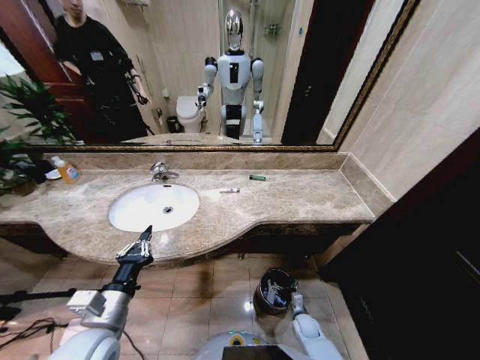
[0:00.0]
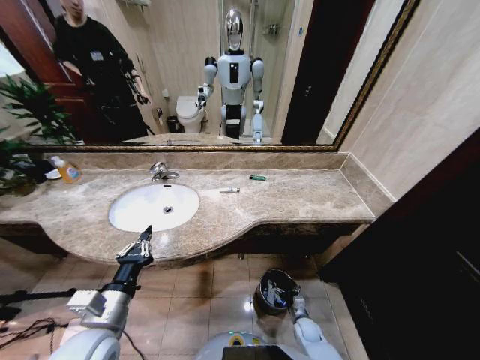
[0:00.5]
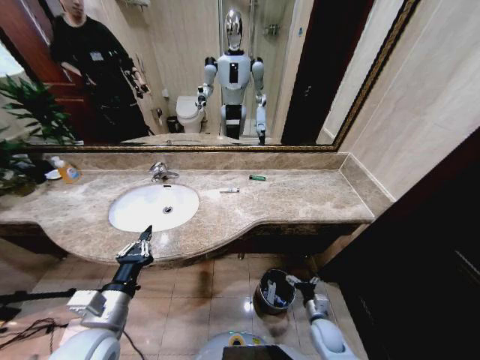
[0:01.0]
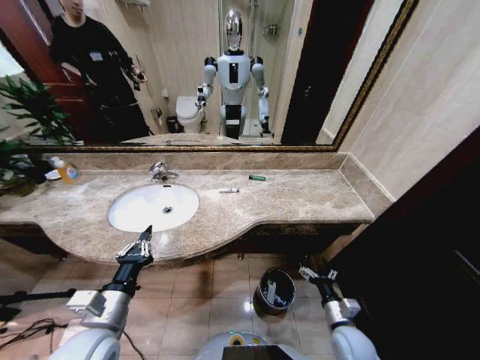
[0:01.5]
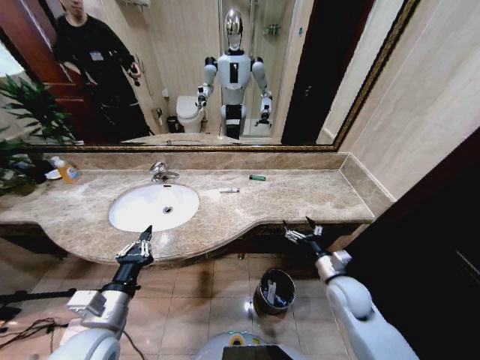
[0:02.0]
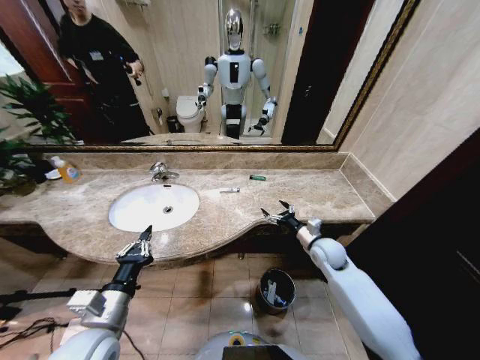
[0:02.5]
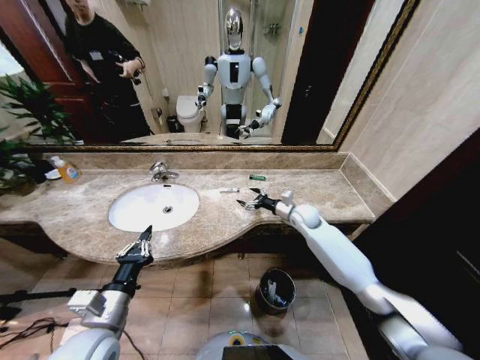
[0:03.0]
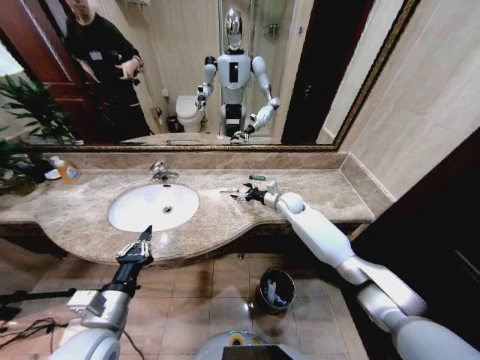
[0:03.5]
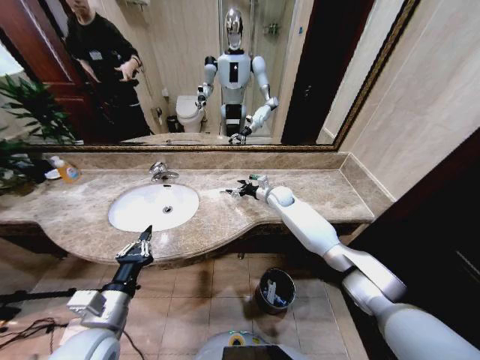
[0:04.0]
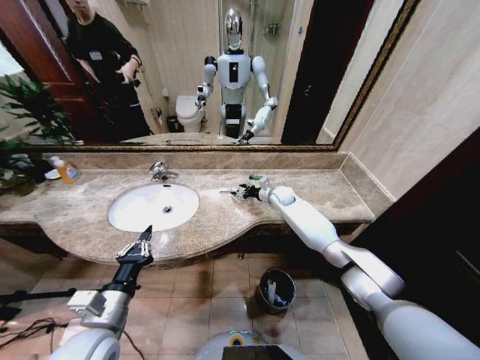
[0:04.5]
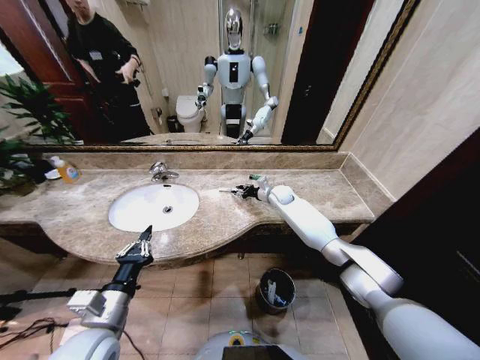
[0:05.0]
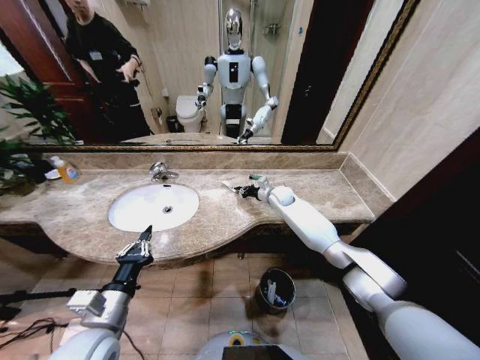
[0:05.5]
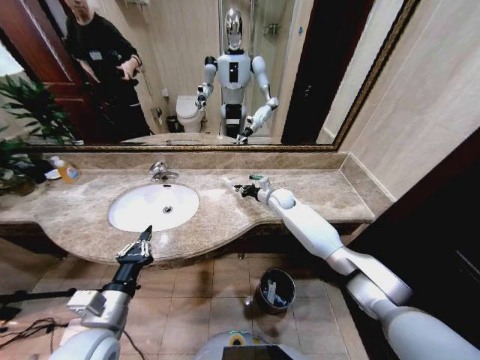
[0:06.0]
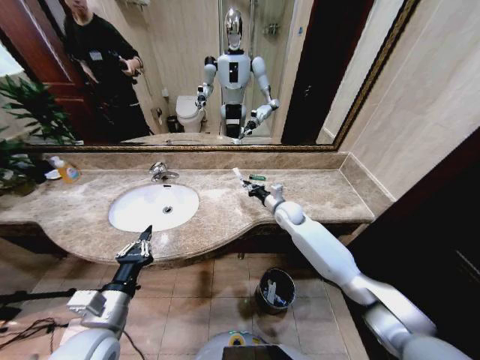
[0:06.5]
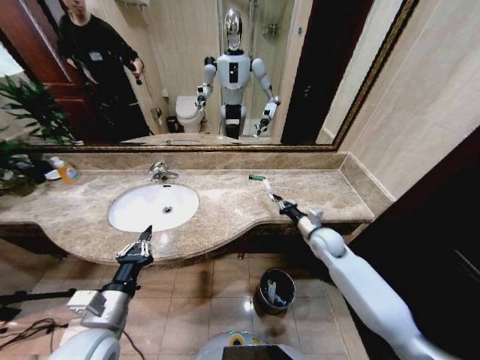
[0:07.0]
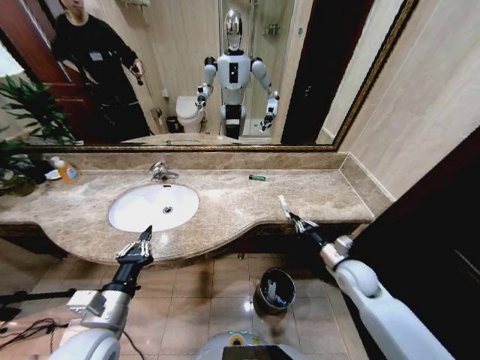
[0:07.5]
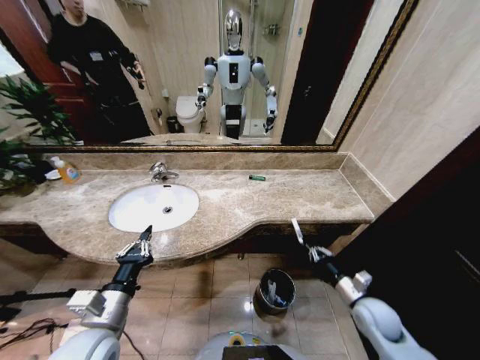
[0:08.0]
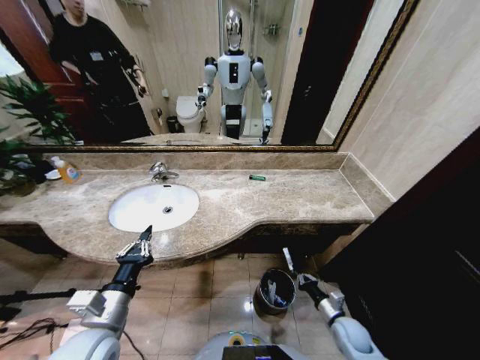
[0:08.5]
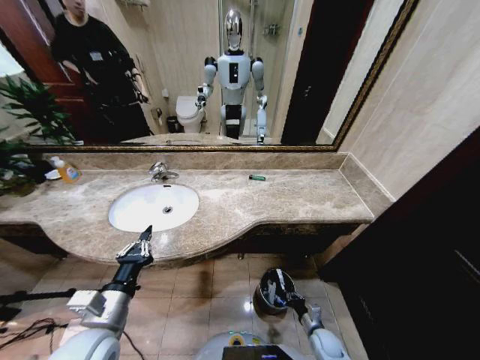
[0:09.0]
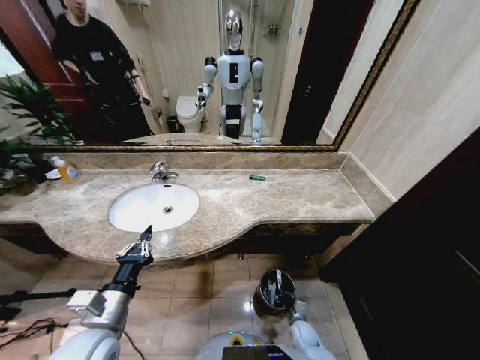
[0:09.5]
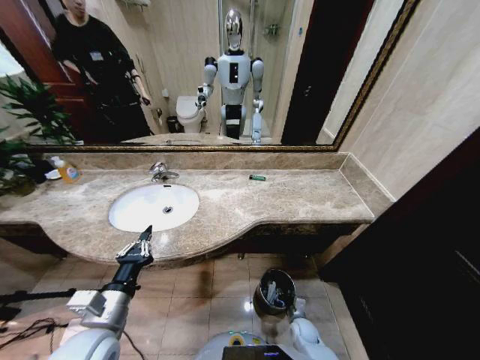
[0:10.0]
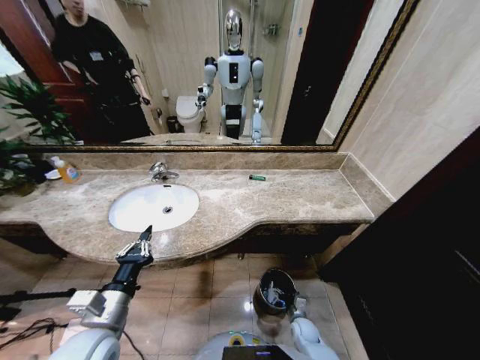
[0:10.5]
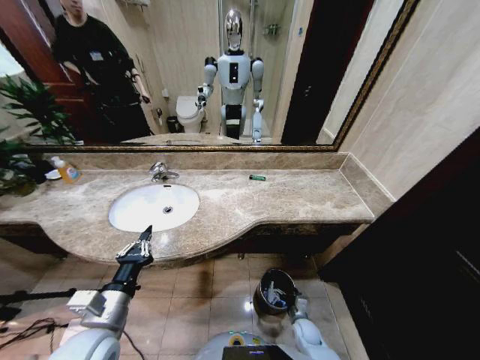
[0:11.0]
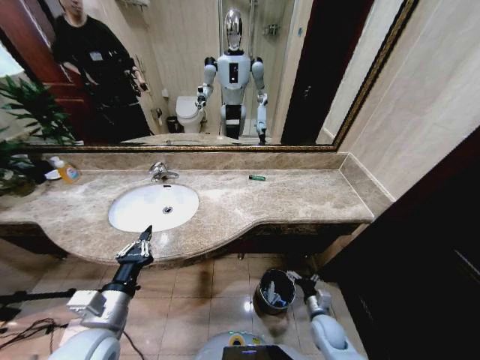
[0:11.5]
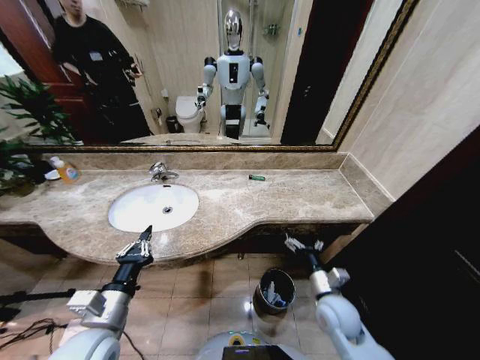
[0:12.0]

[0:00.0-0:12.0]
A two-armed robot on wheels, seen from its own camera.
Task of the whole recording: Pick up the trash from the sink and place it in the trash bin.
0:00.0 to 0:02.0: The right gripper is displaced upward by about 30 cm.
0:02.0 to 0:04.0: The right gripper shifts some 35 cm forward.
0:04.0 to 0:06.0: The right gripper closes up.
0:06.0 to 0:08.0: The right gripper heads backward and to the right, covering approximately 40 cm.
0:08.0 to 0:10.0: The right gripper travels downward and to the left by approximately 25 cm, and opens up.
0:10.0 to 0:12.0: The right gripper heads upward, covering about 25 cm, and opens its fingers.

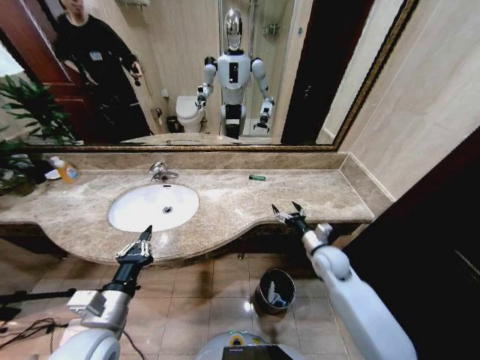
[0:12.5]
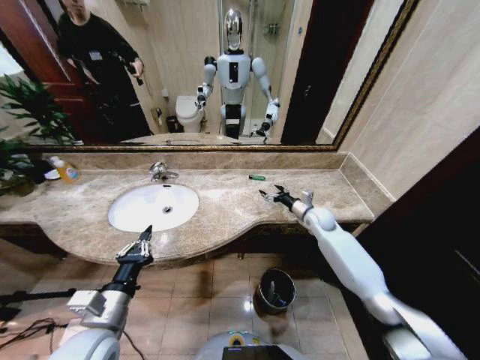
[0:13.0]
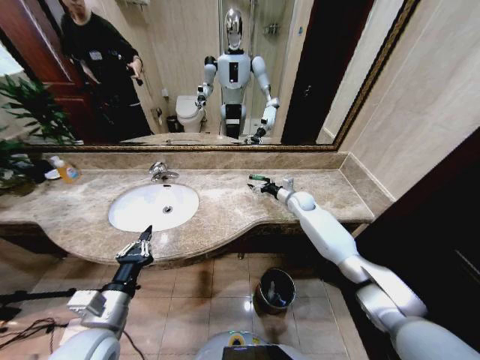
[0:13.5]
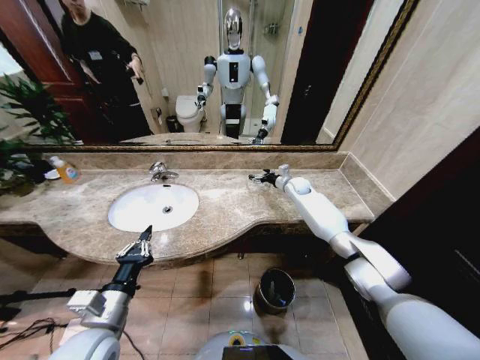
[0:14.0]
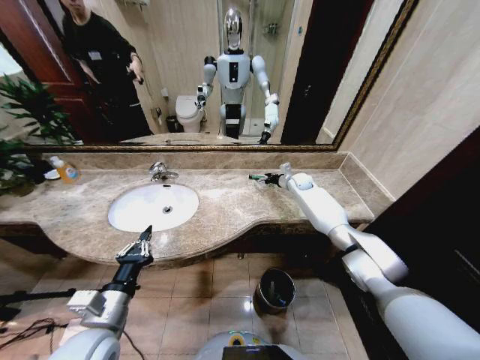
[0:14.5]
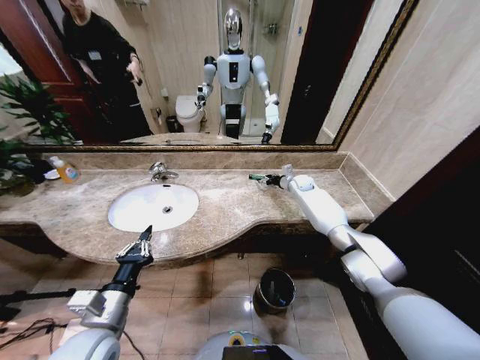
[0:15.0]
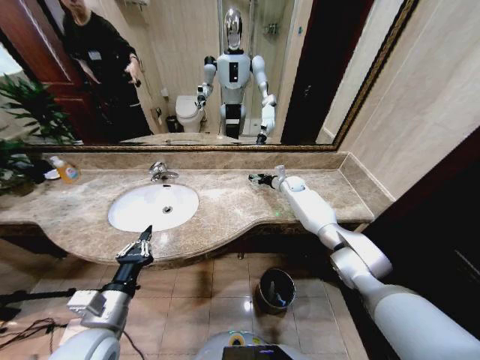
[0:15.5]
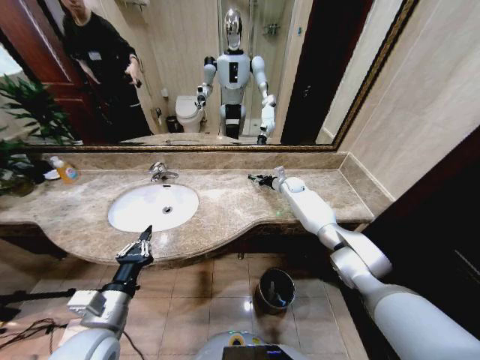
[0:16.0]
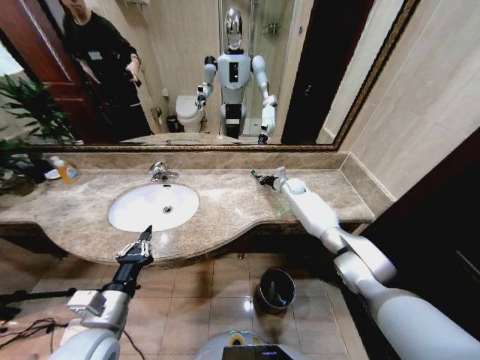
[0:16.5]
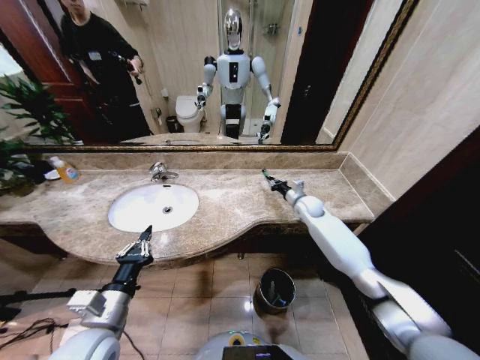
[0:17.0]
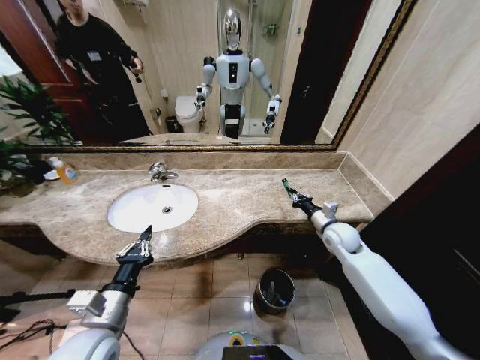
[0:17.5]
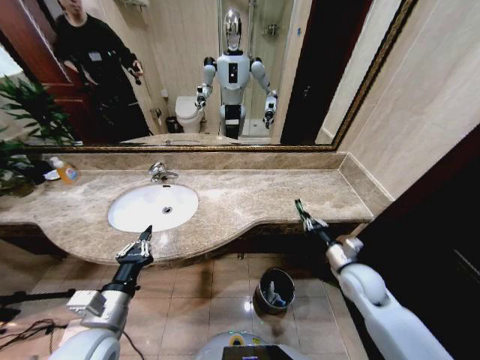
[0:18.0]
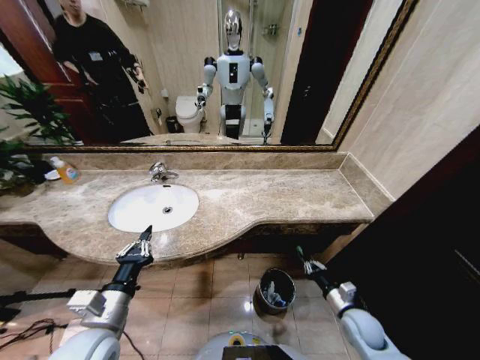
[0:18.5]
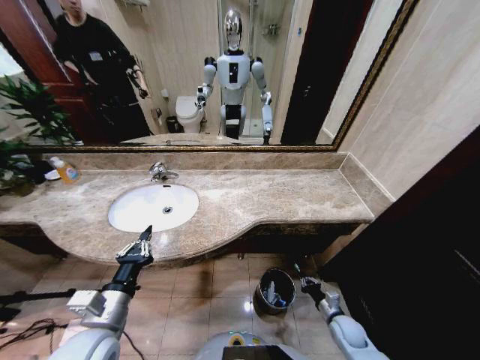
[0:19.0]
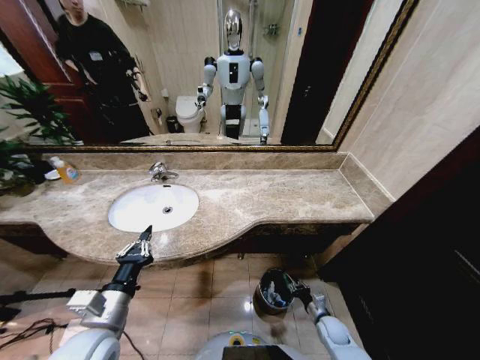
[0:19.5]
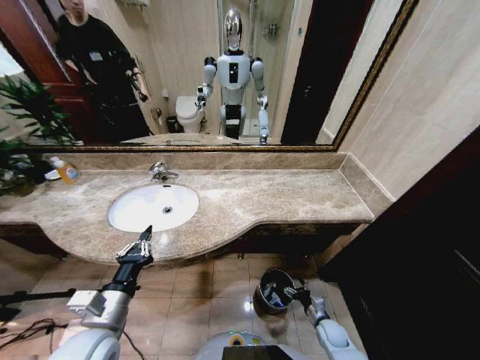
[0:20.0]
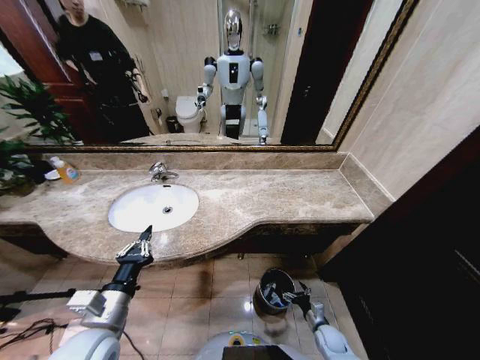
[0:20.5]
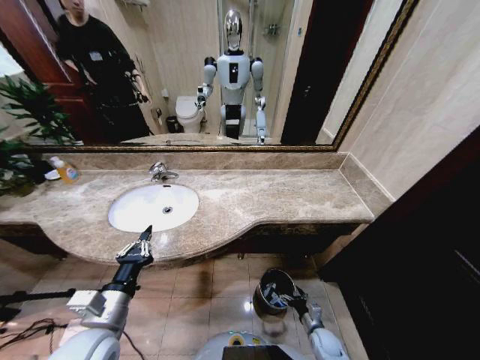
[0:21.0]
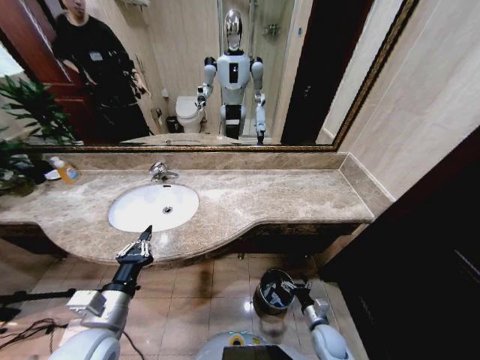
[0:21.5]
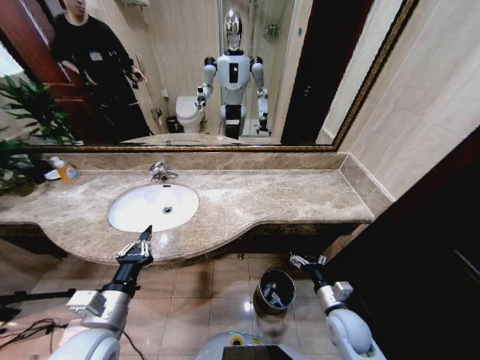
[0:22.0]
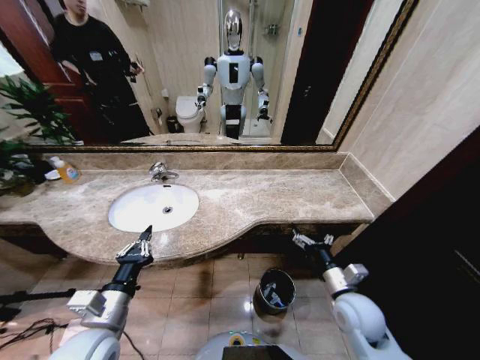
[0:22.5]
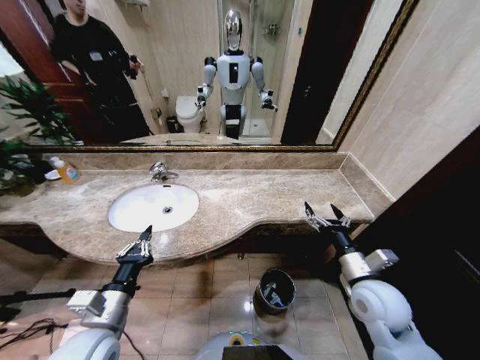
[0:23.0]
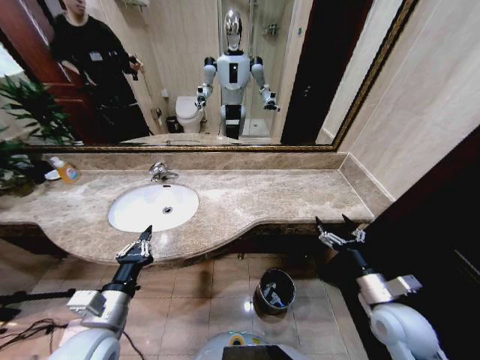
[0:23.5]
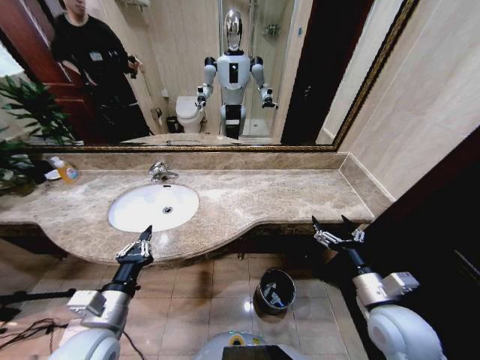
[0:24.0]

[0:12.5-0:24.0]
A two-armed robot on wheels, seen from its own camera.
Task of the whole recording: Pick up the trash from the sink and place it in the trash bin.
0:12.5 to 0:14.5: The right gripper is displaced forward by about 30 cm.
0:14.5 to 0:16.5: The right gripper closes.
0:16.5 to 0:18.5: The right gripper moves backward, about 40 cm.
0:18.5 to 0:20.0: The right gripper is displaced downward by some 15 cm, and opens up.
0:20.0 to 0:22.0: The right gripper is displaced upward by some 20 cm.
0:22.0 to 0:24.0: The right gripper moves upward, about 15 cm.
